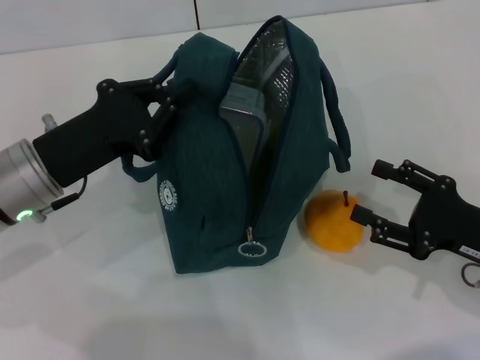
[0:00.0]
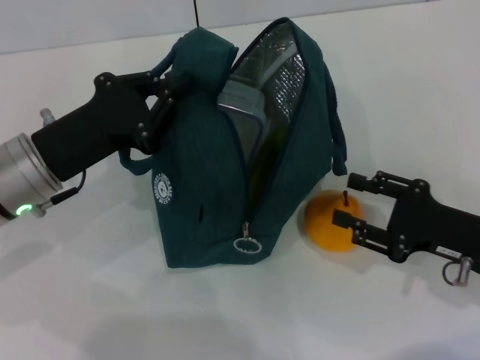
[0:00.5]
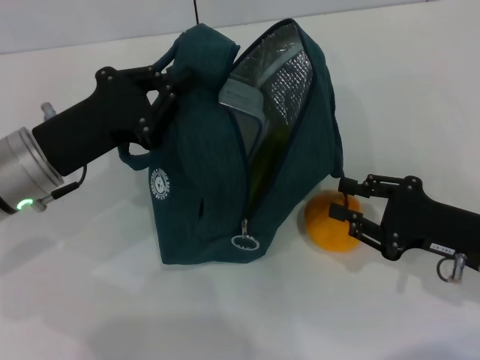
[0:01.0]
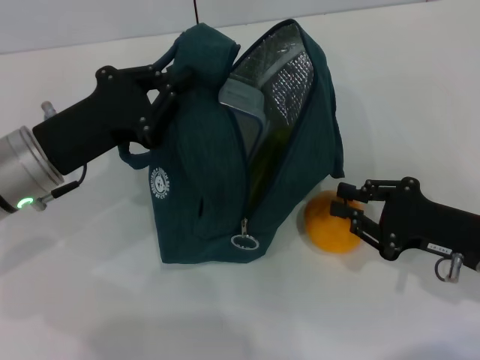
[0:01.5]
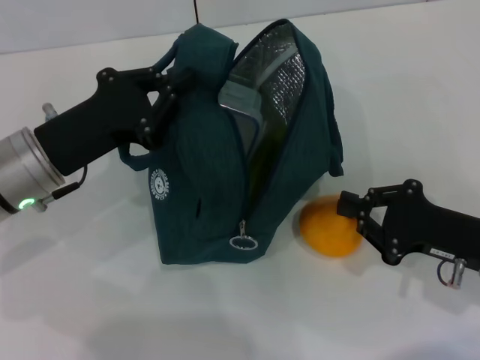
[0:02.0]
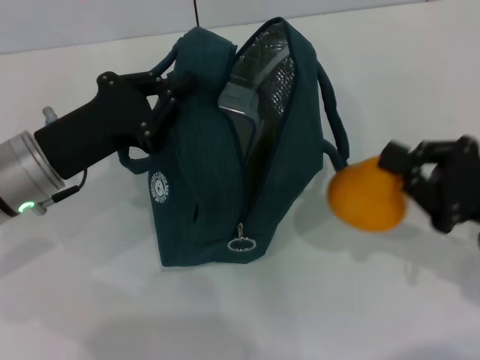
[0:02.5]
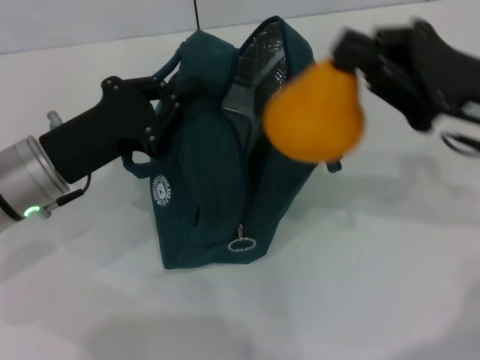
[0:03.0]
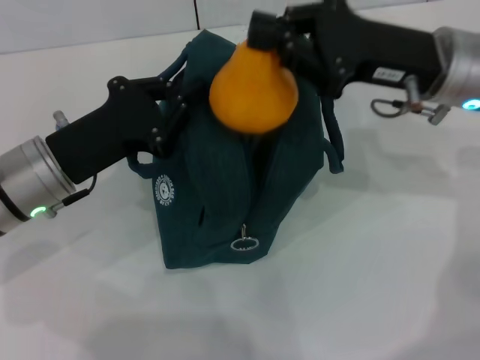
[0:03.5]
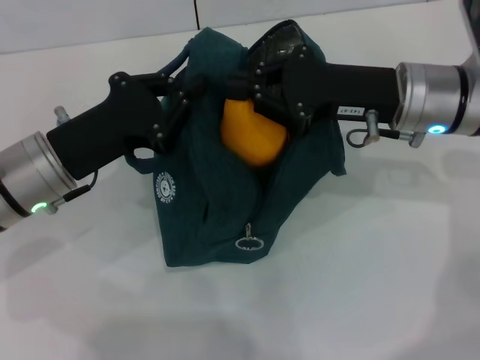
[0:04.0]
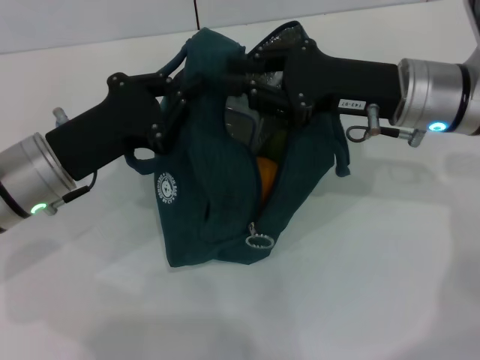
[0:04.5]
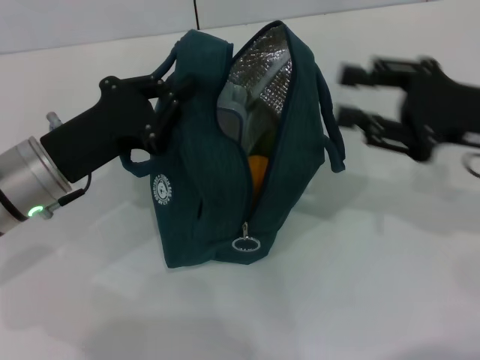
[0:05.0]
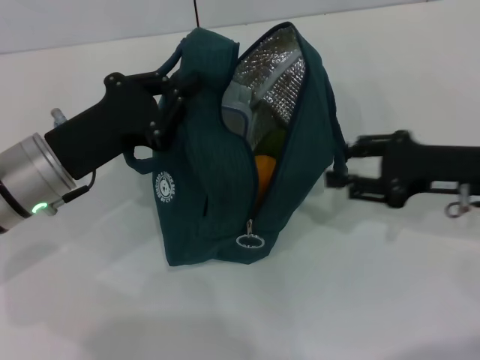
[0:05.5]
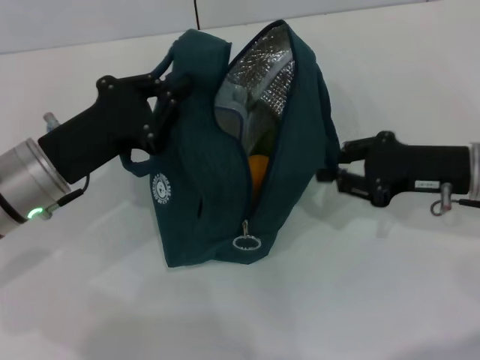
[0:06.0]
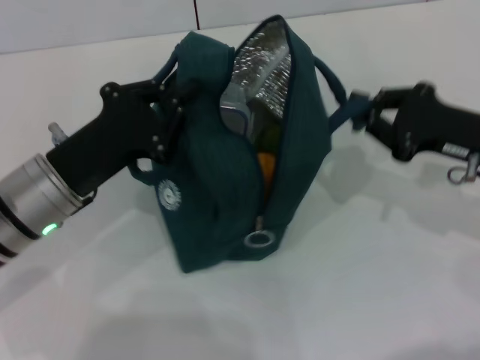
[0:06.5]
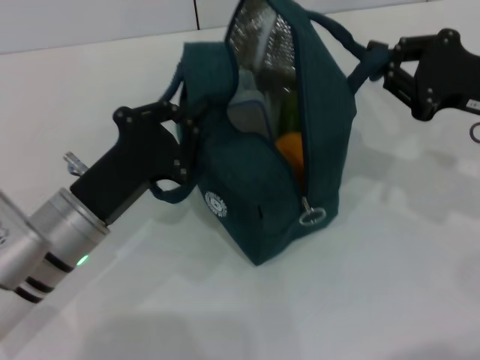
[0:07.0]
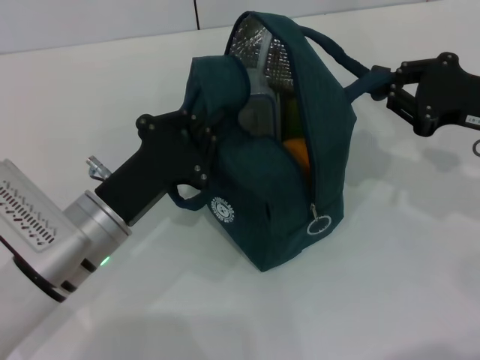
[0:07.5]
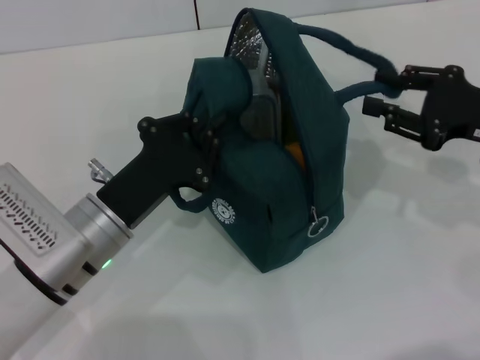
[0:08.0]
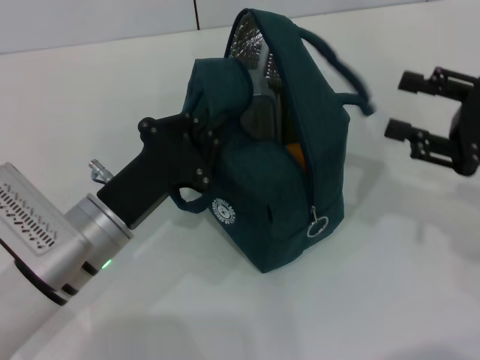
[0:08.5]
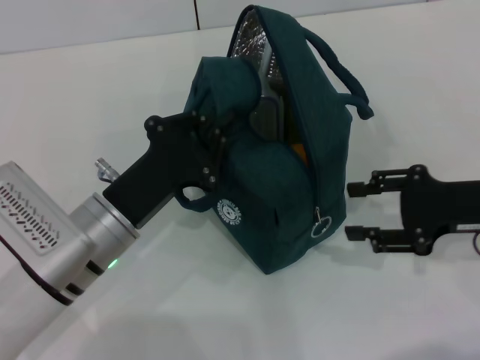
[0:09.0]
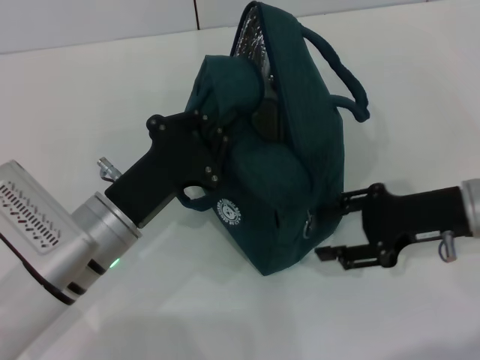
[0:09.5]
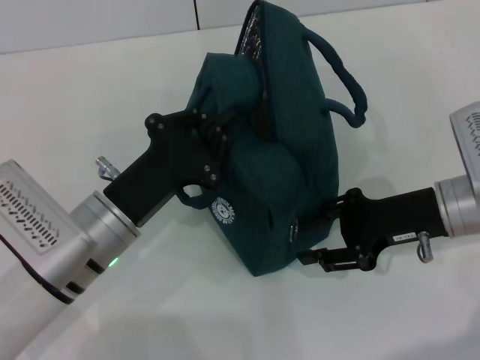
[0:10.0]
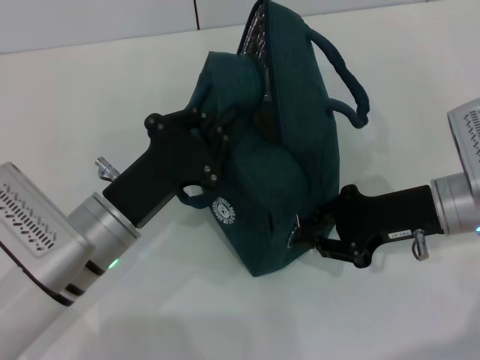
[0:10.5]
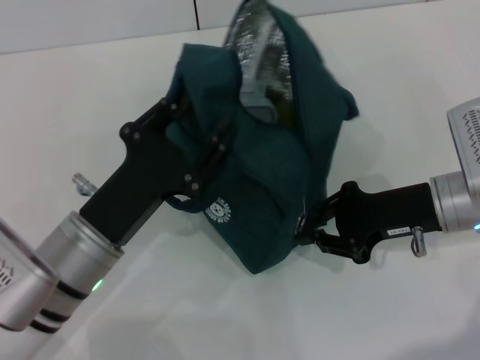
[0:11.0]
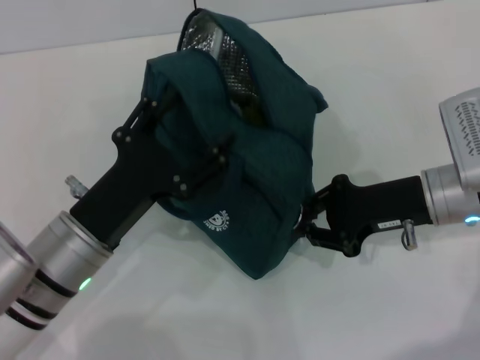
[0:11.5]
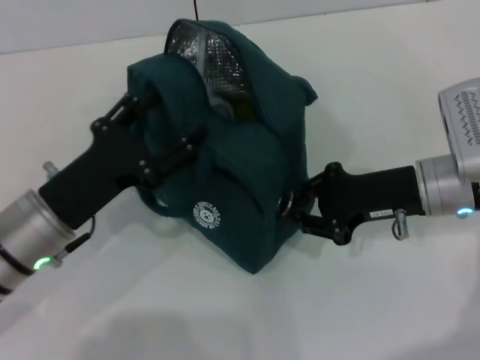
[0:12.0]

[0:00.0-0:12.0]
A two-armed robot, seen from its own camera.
Step, 0.0 to 2.0 s: Grab the pear with your right hand.
Step, 5.0 to 8.0 s: Hold the lunch bag with your right hand.
0.0 to 2.0 s: The right gripper closes its fingers.
2.0 to 4.0 s: The right gripper goes some 20 cm forward, upward and to the left.
4.0 to 6.0 s: The right gripper is displaced to the right and downward by approximately 10 cm.
6.0 to 8.0 s: The right gripper moves about 5 cm. Meanwhile the left gripper changes place by roughly 10 cm.
8.0 to 10.0 s: The right gripper is displaced to the left and downward by roughly 10 cm.
10.0 to 12.0 s: The left gripper is displaced to the left by about 5 cm, and opens its fingers. The right gripper closes up.

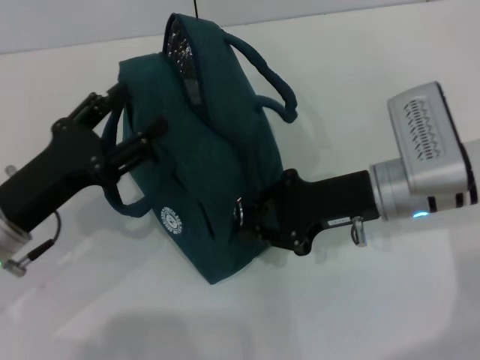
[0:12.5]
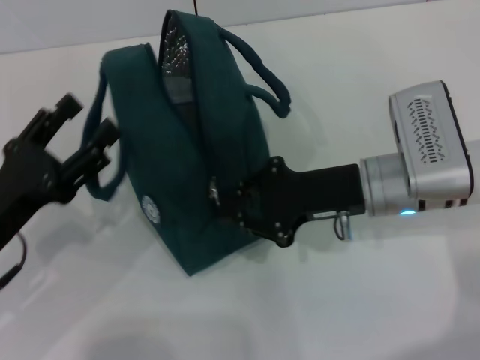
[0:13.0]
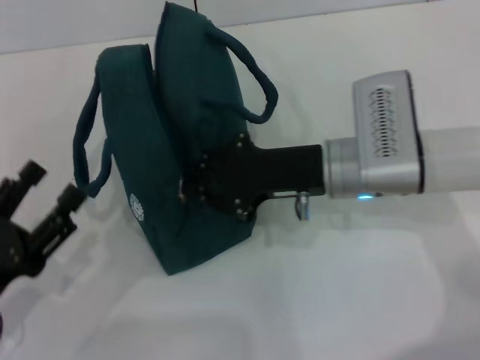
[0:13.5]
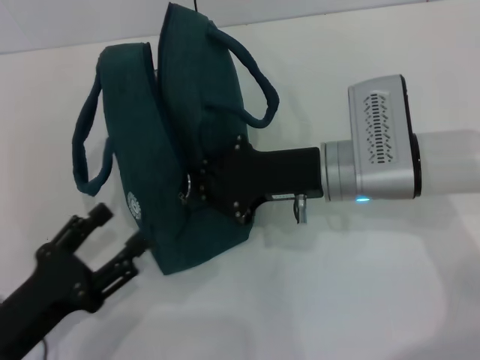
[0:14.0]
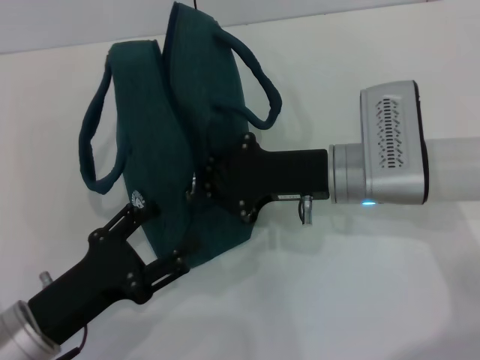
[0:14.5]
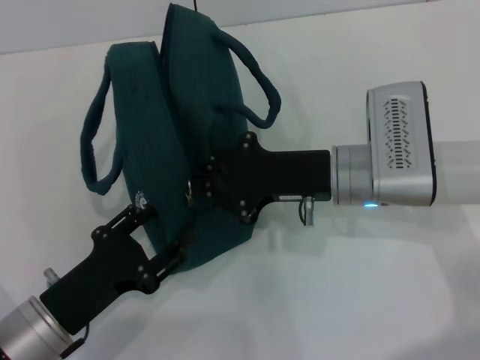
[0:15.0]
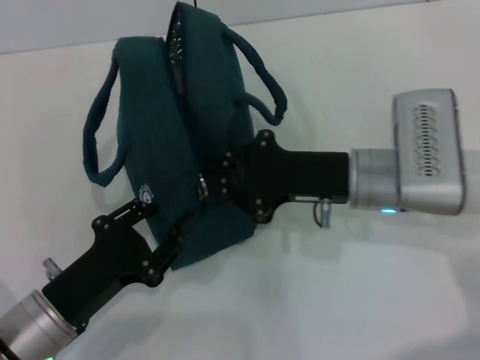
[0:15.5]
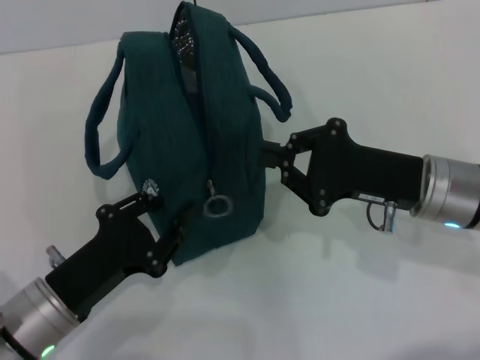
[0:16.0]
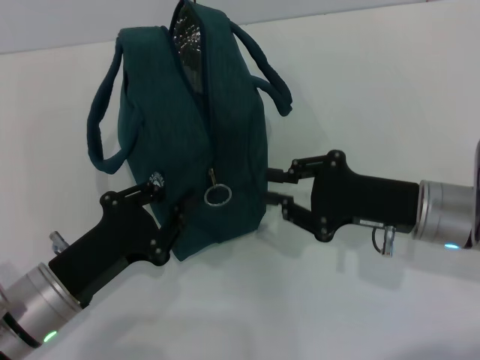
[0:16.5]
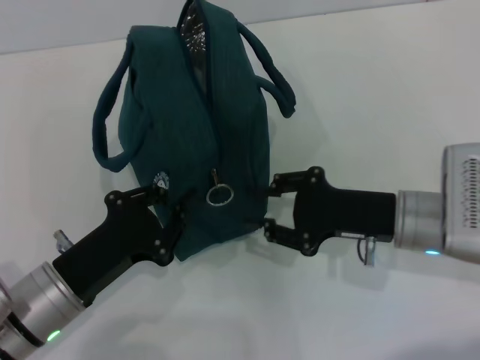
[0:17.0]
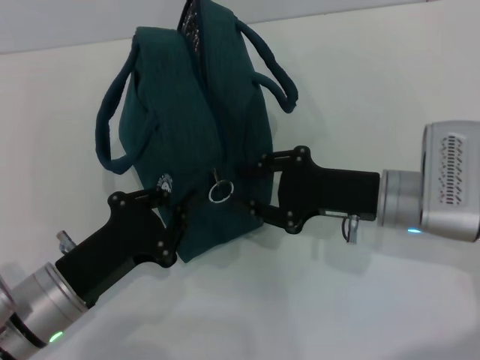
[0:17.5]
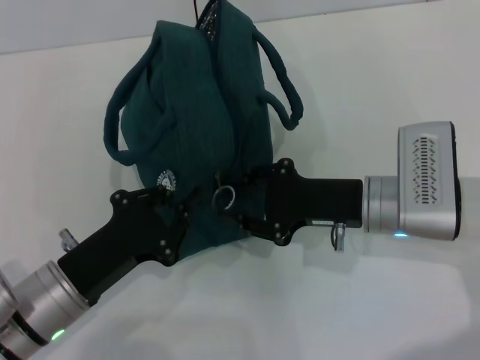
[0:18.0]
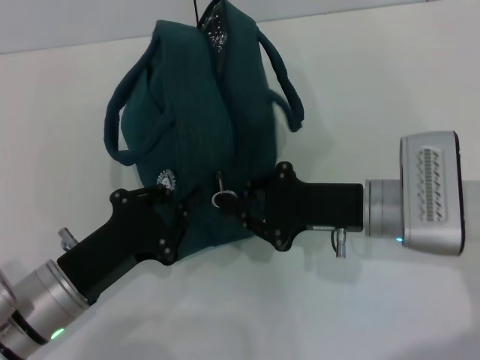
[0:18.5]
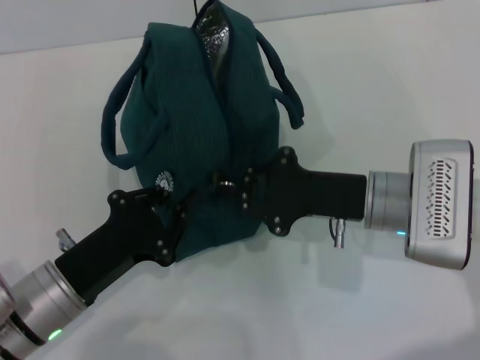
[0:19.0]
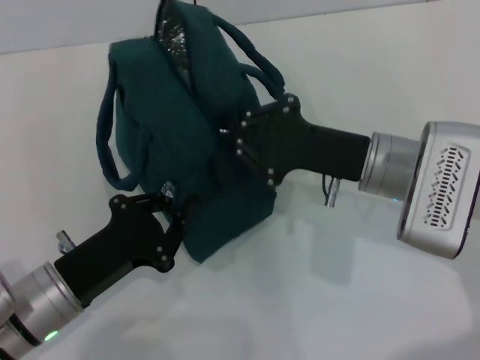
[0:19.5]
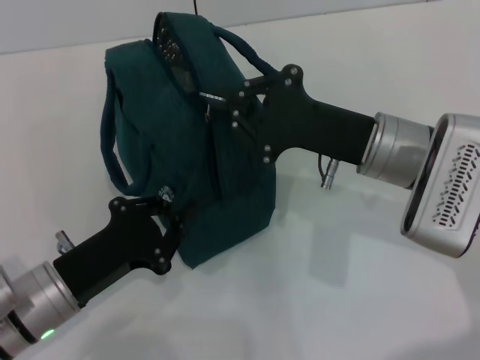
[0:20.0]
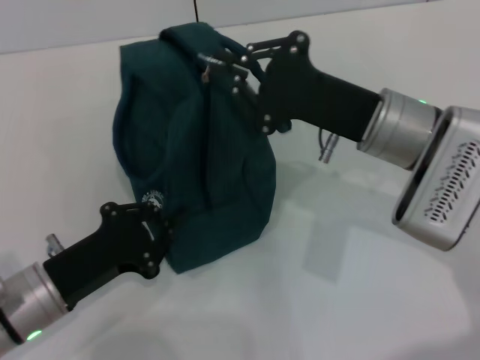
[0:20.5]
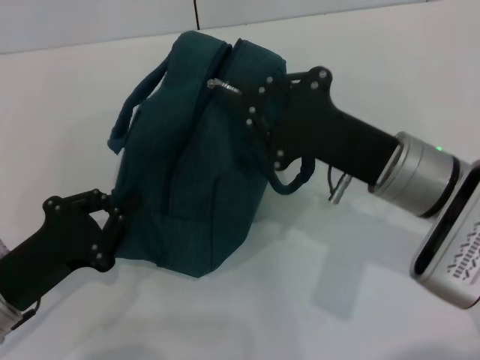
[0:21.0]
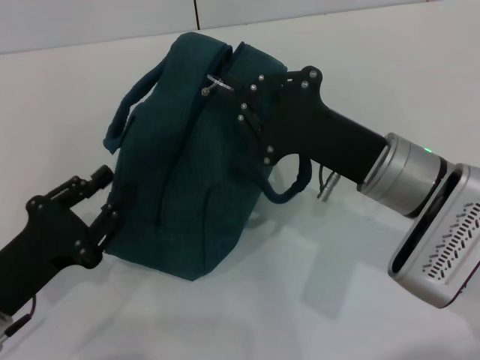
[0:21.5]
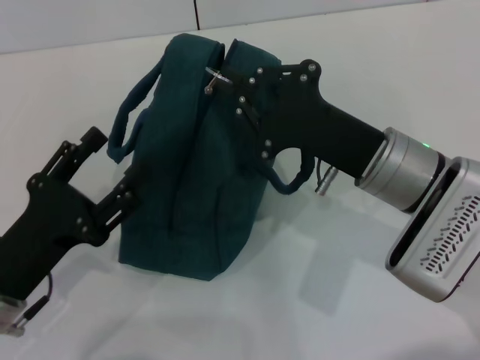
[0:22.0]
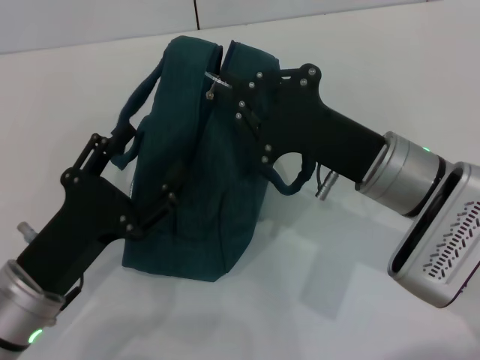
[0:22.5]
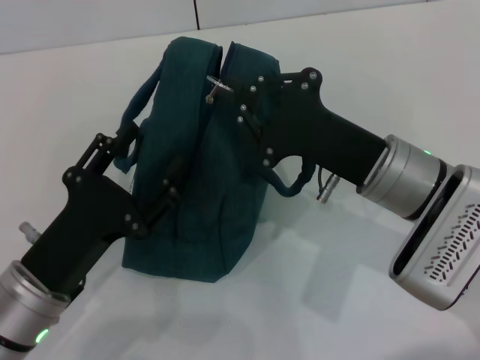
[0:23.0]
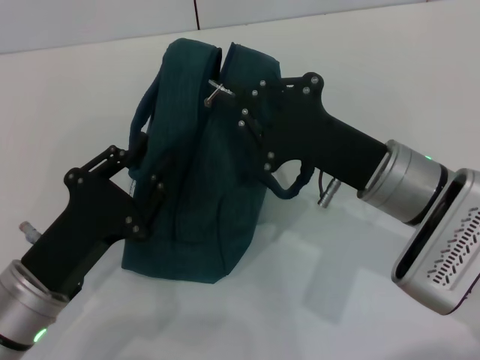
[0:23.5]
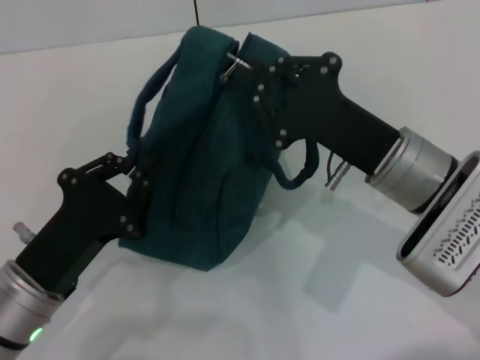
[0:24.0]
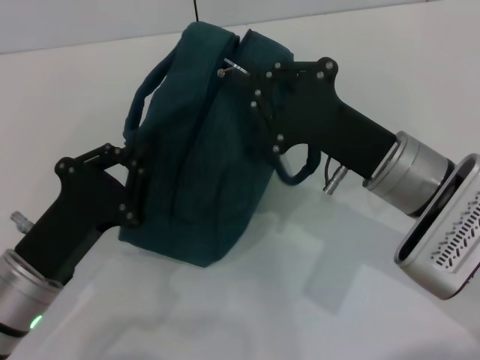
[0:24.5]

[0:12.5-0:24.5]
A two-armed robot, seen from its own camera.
12.5 to 14.5 s: The left gripper goes approximately 10 cm backward.
14.5 to 16.5 s: The right gripper travels to the right by some 10 cm, while the left gripper closes.
16.5 to 18.5 s: The grippers stay close to where they were, moving slightly.
18.5 to 20.5 s: The right gripper moves upward, some 5 cm.
20.5 to 22.5 s: The left gripper opens.
22.5 to 24.5 s: The left gripper closes.

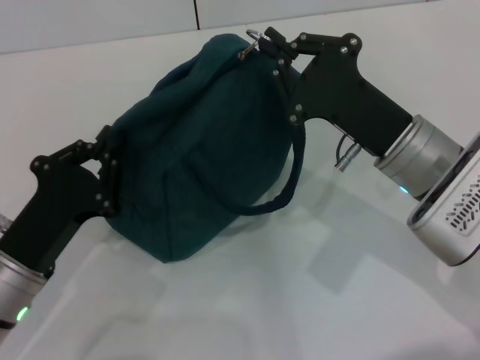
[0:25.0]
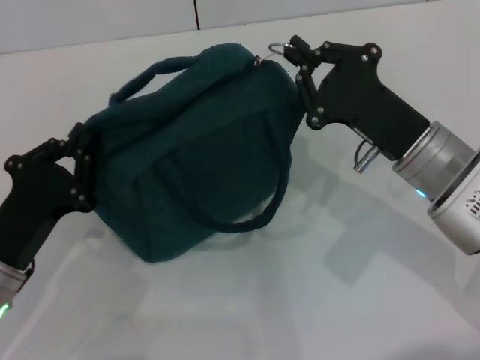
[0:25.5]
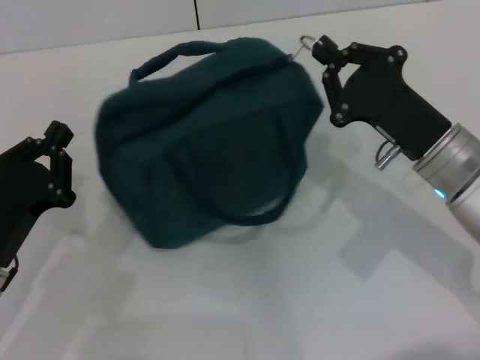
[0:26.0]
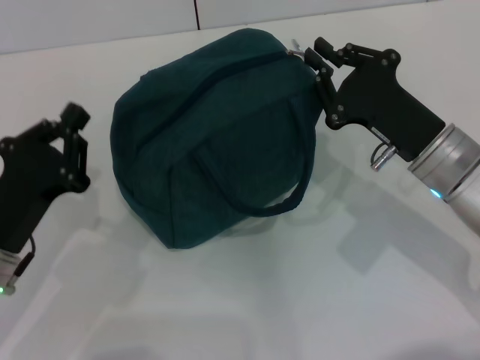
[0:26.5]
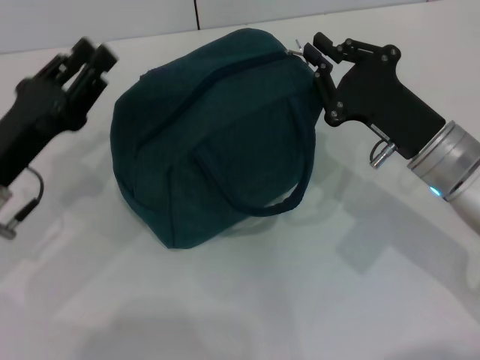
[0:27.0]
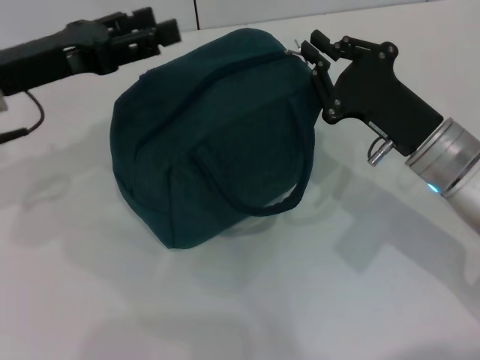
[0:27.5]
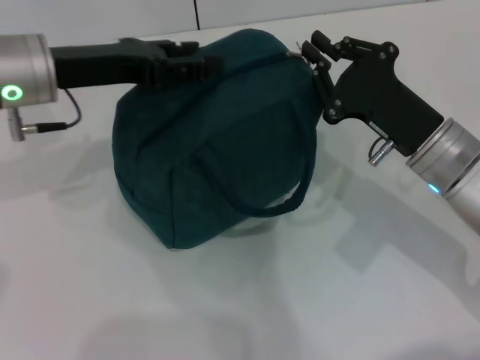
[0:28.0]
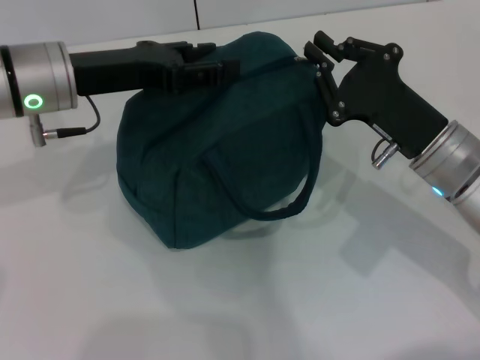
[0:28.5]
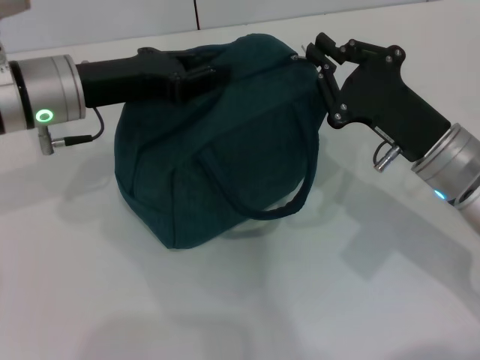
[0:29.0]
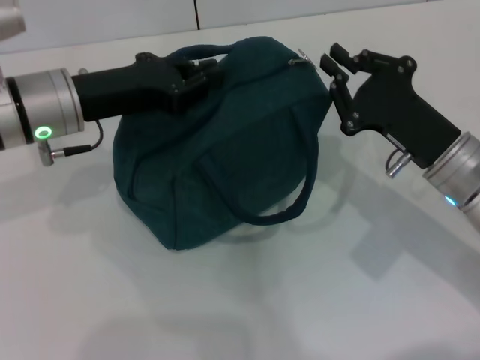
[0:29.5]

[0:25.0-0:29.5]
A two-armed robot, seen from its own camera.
25.0 to 27.0 s: The left gripper goes approximately 10 cm forward and upward.
27.0 to 29.5 s: The left gripper shifts approximately 10 cm forward and to the right, and opens, then closes again.
